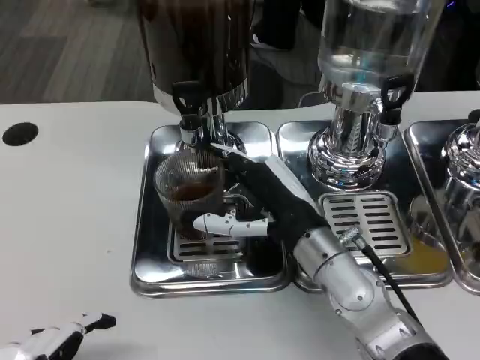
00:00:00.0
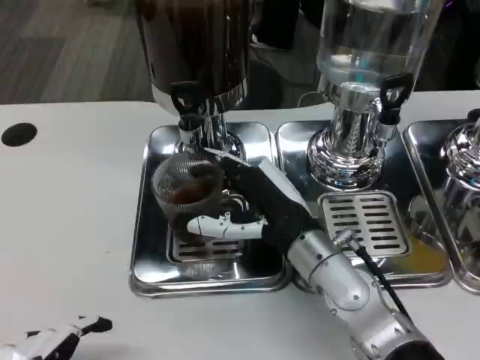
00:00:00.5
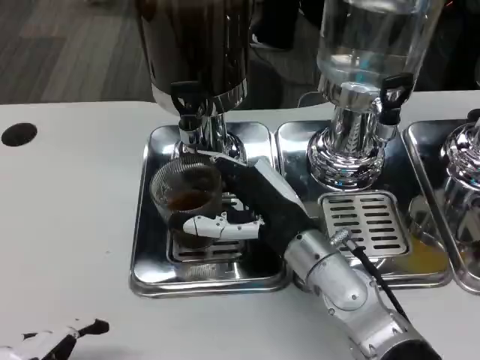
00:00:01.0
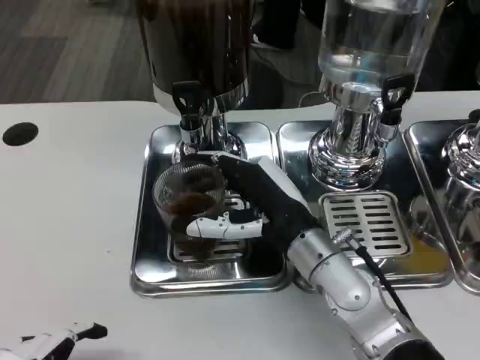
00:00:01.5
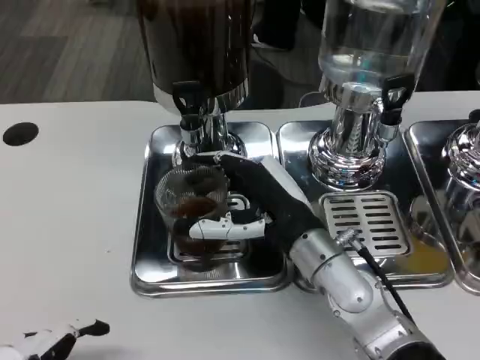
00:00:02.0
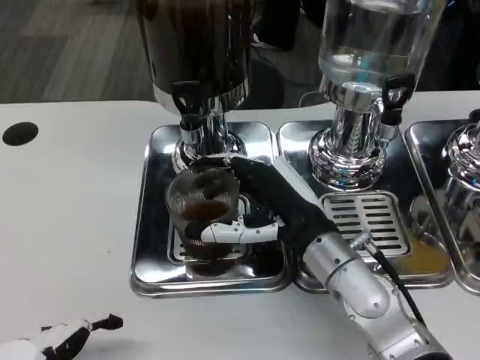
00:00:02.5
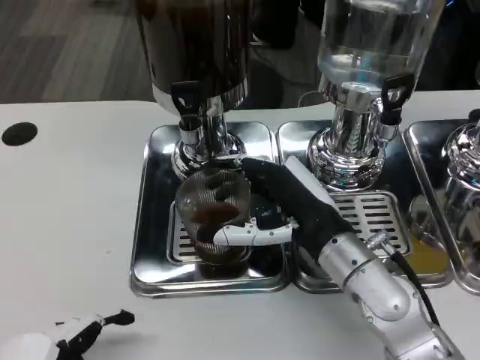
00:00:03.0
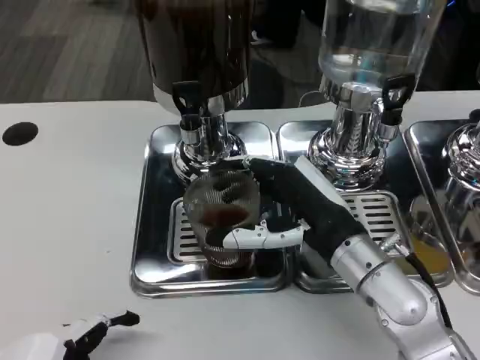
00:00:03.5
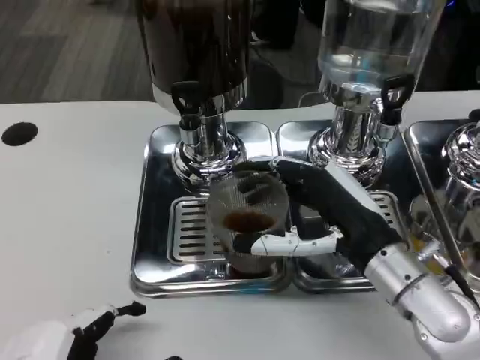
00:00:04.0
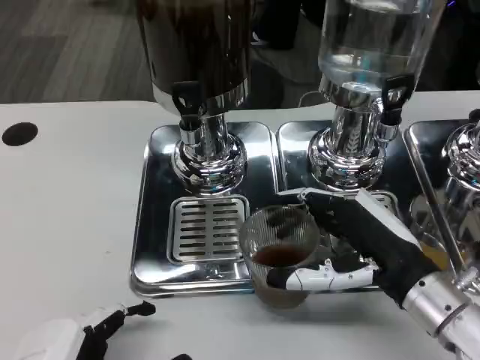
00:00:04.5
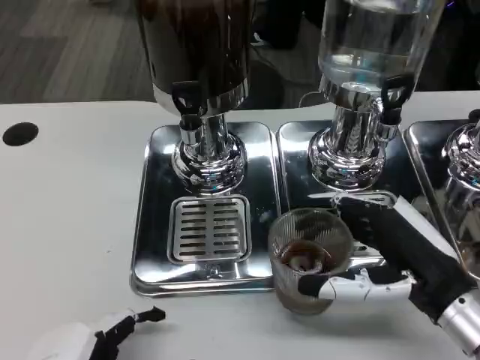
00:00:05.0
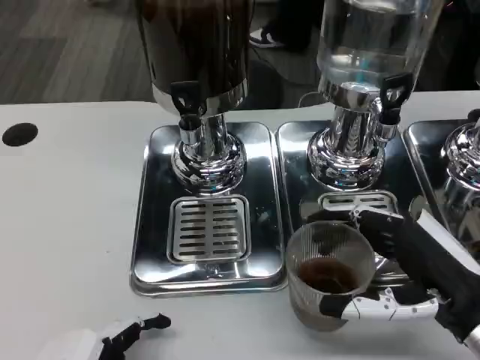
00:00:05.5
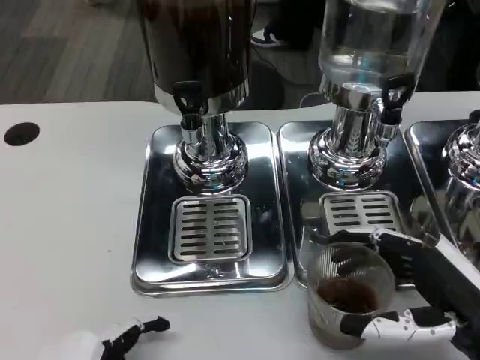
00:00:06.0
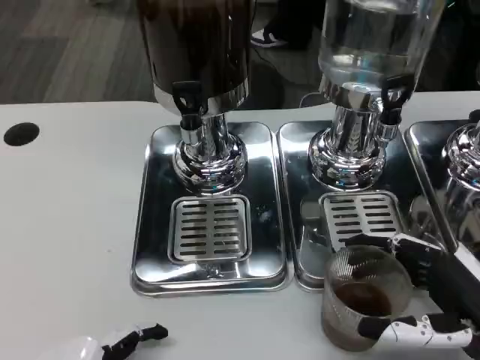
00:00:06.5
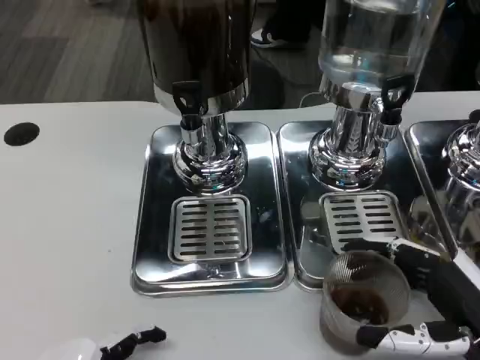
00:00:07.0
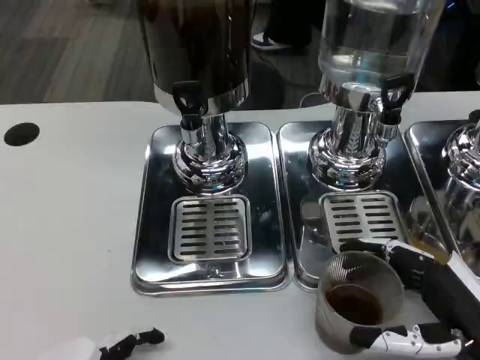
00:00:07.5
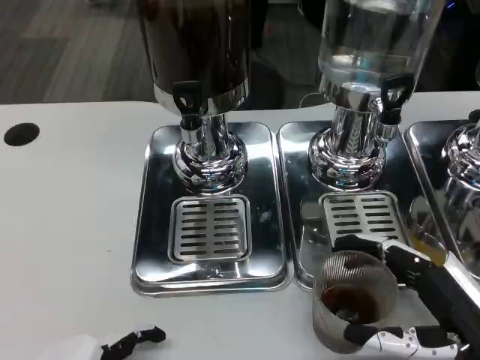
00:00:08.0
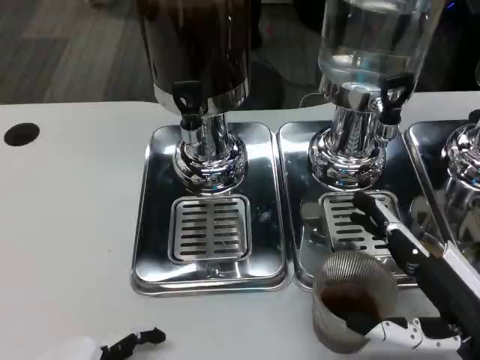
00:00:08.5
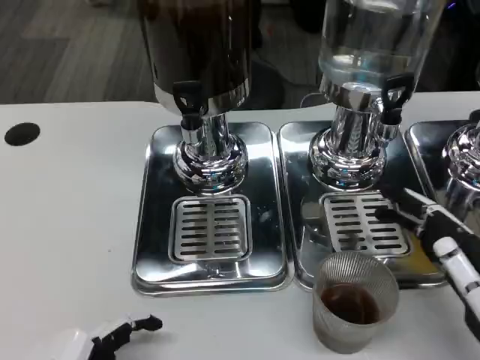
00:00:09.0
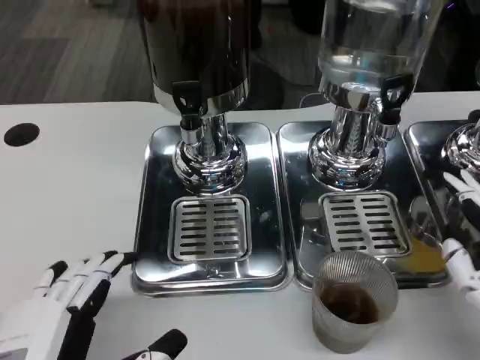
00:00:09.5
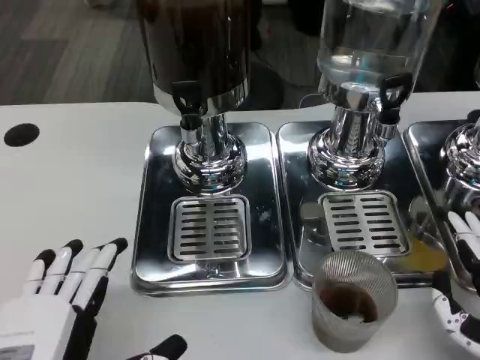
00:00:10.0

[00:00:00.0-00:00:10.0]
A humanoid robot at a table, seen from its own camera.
Task of the whole recording: Grasp the cup under the faucet to collect the drink, then remove the cup.
00:00:00.0 to 00:00:02.0: Both hands stay about where they are.
00:00:02.0 to 00:00:04.0: The right hand moves to the right, about 5 cm.
00:00:04.0 to 00:00:06.0: The right hand heads to the right and backward, covering approximately 10 cm.
00:00:06.0 to 00:00:08.0: The hands move only a little.
00:00:08.0 to 00:00:10.0: The right hand moves some 5 cm.

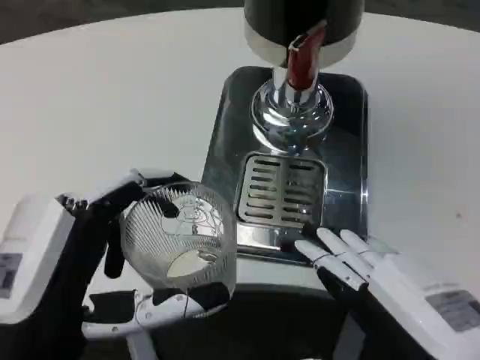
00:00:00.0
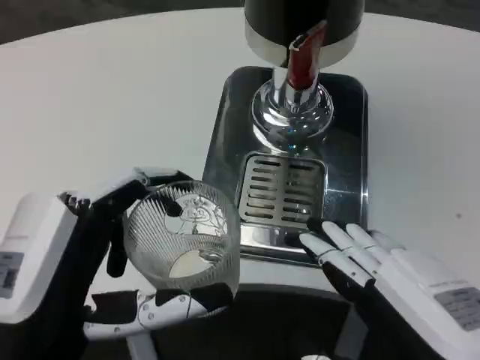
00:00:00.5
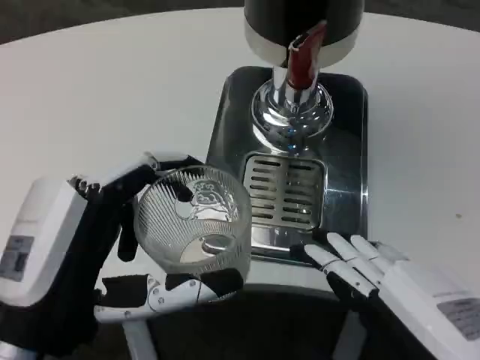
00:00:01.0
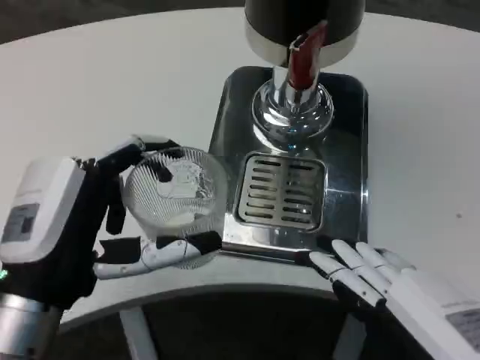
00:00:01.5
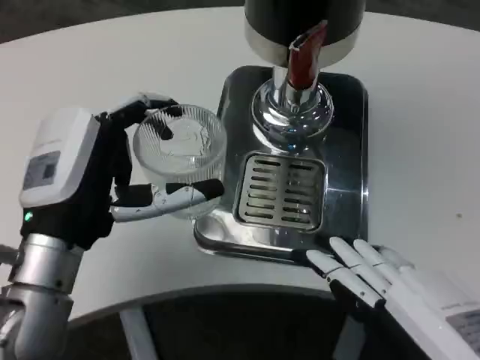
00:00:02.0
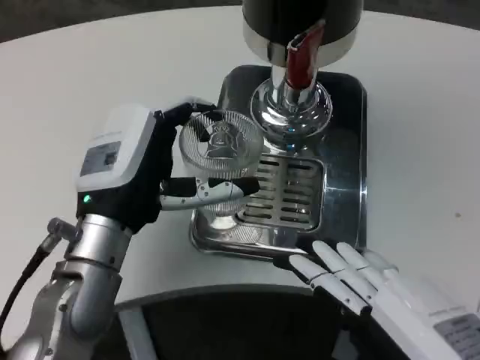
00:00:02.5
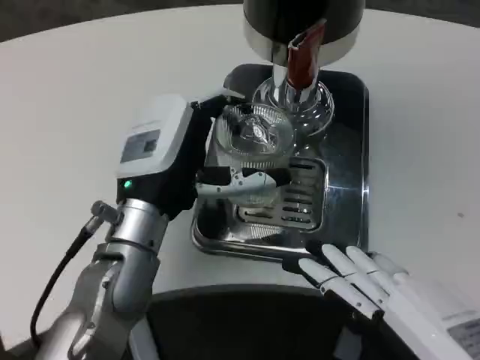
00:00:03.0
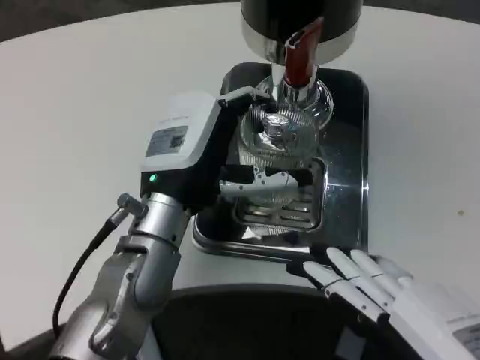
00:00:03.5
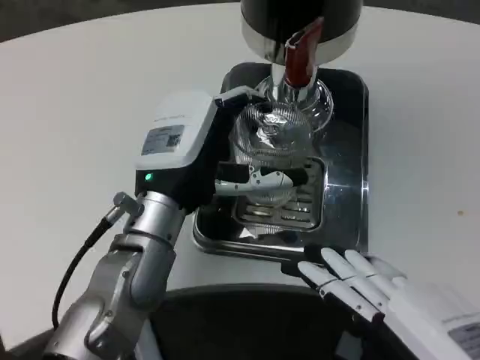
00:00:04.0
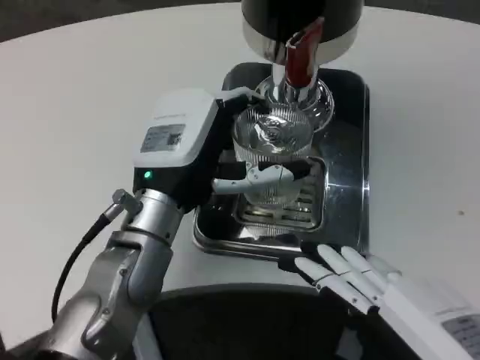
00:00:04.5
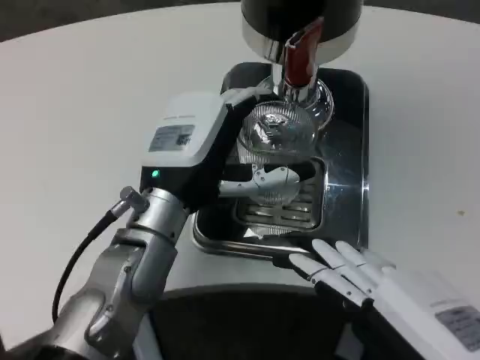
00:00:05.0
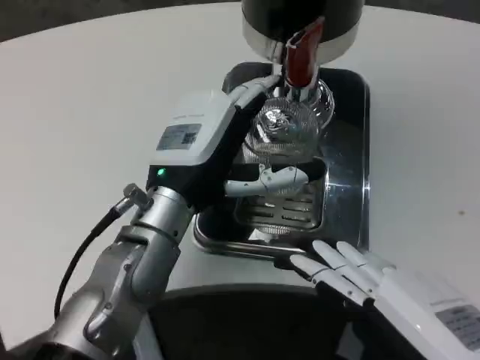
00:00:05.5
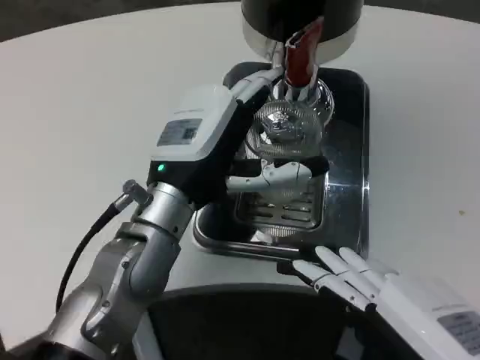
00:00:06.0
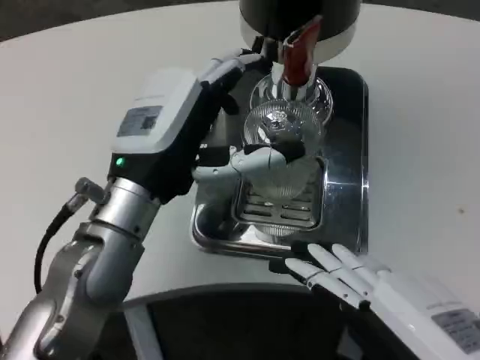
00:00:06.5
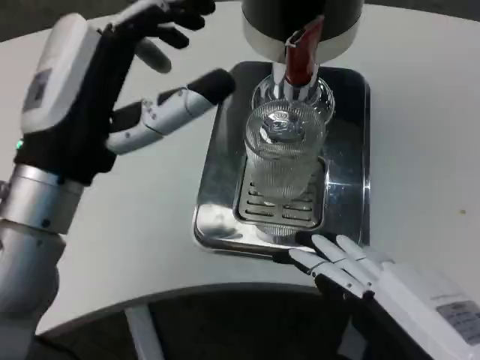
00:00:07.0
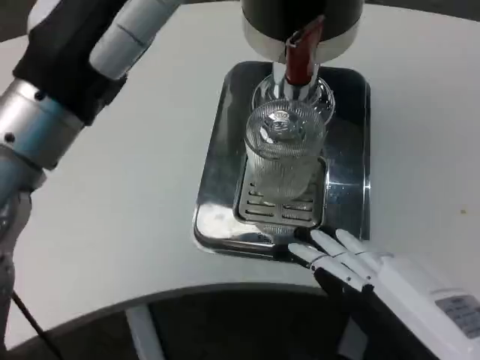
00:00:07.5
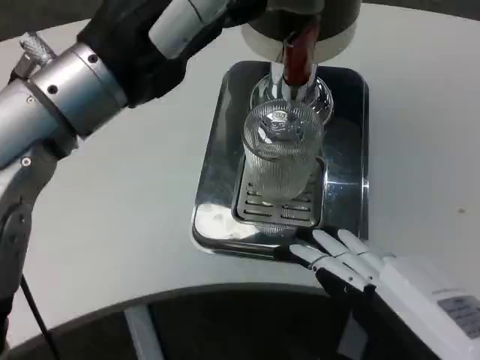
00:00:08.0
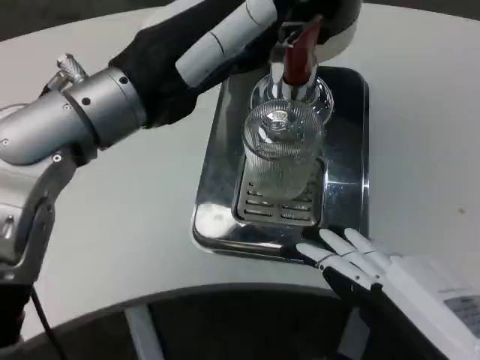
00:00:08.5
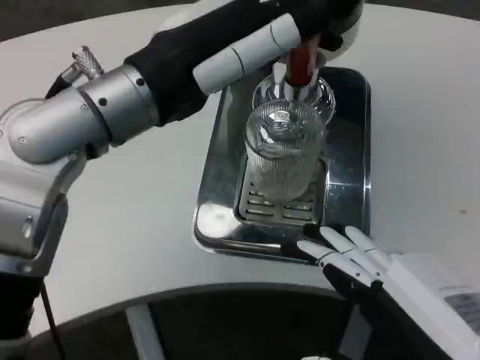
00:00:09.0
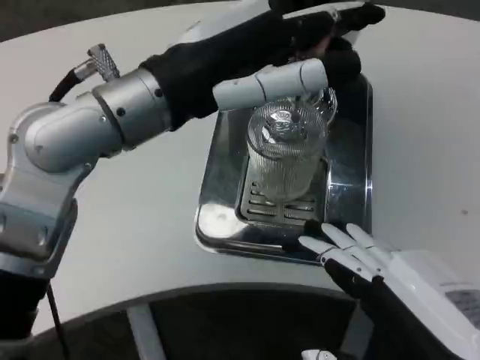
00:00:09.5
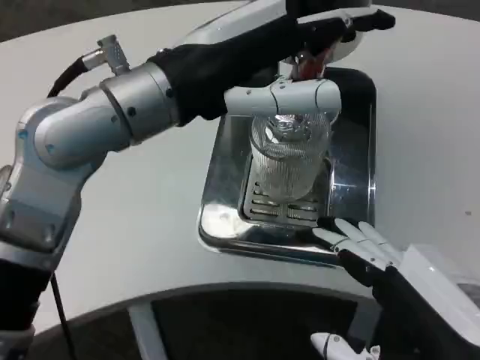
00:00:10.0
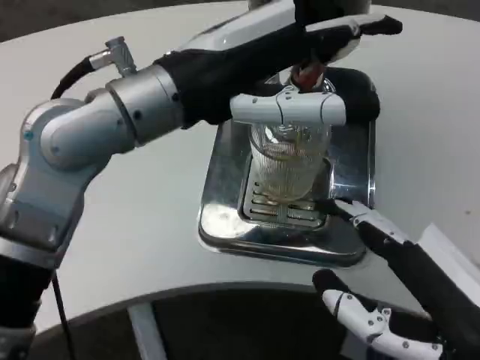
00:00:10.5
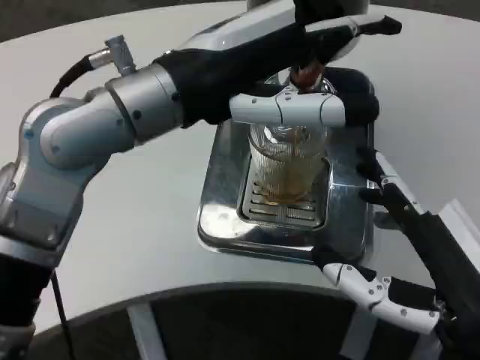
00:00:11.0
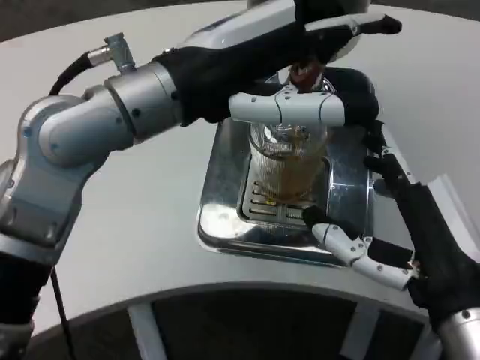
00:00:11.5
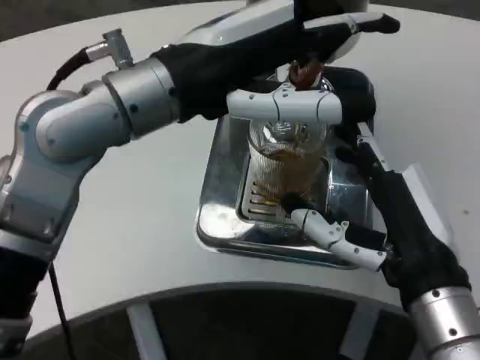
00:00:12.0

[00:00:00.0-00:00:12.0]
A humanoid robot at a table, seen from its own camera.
Task of the whole recording: Grasp the cup under the faucet to collect the drink, then remove the cup.
00:00:00.0 to 00:00:02.0: The left hand goes roughly 10 cm forward.
00:00:02.0 to 00:00:04.0: The left hand shifts approximately 10 cm to the right and forward.
00:00:04.0 to 00:00:06.0: The hands move only a little.
00:00:06.0 to 00:00:08.0: The left hand is displaced upward by some 15 cm.
00:00:10.0 to 00:00:12.0: The right hand shifts some 10 cm forward.

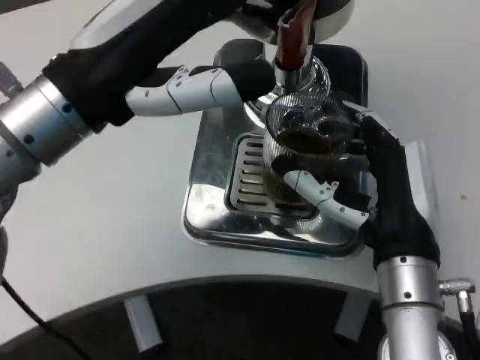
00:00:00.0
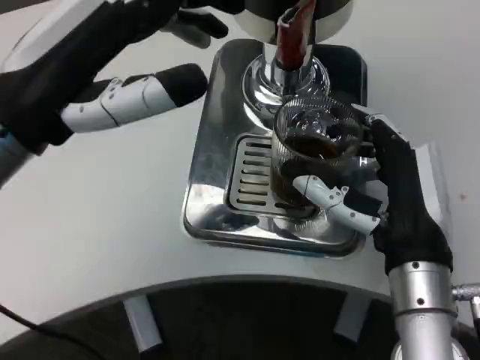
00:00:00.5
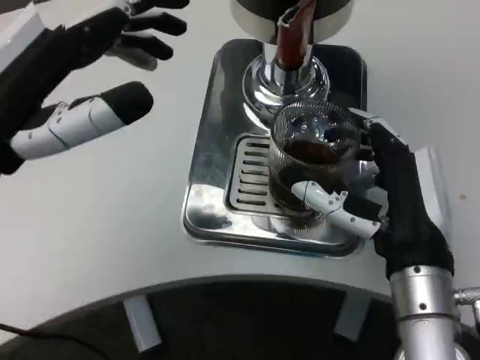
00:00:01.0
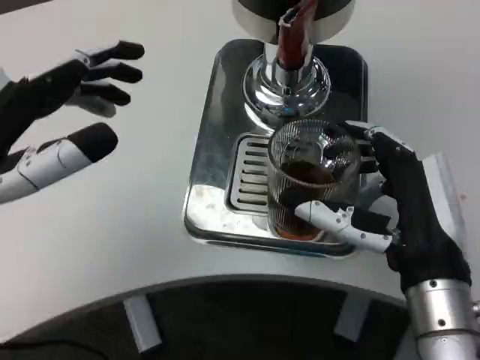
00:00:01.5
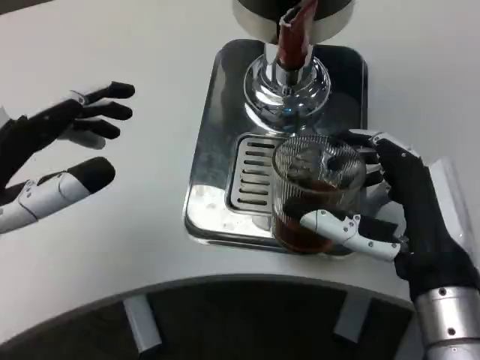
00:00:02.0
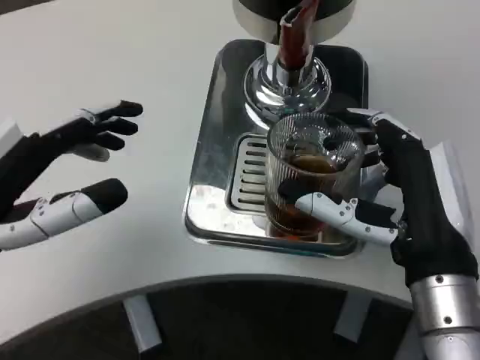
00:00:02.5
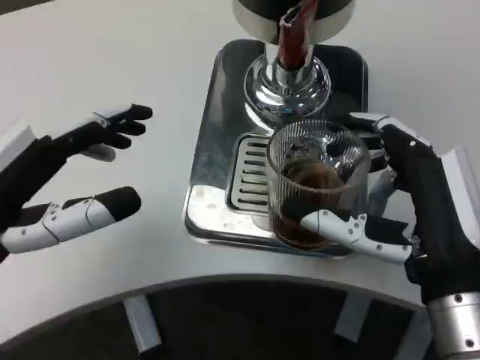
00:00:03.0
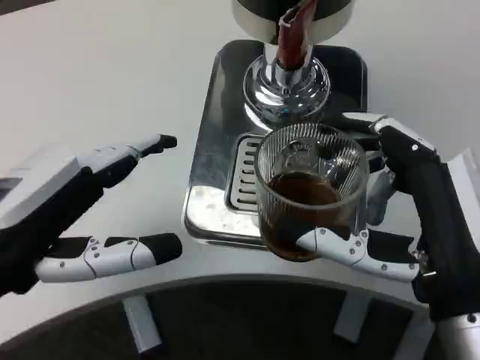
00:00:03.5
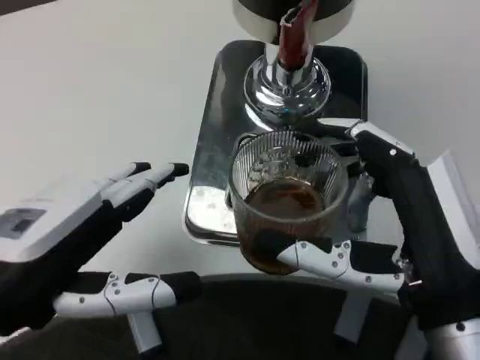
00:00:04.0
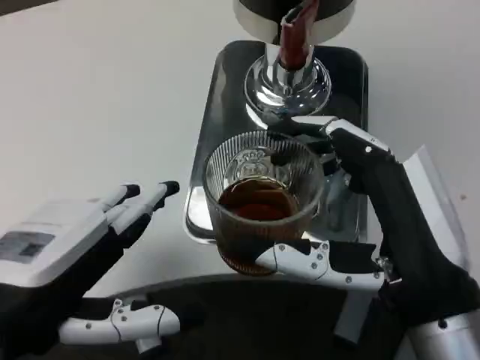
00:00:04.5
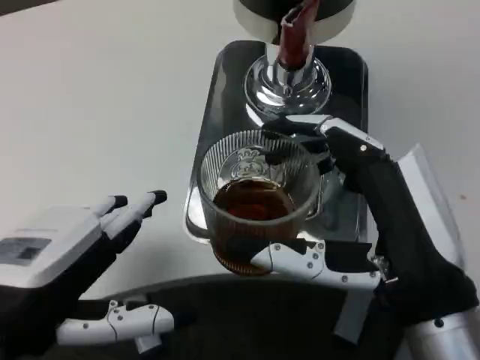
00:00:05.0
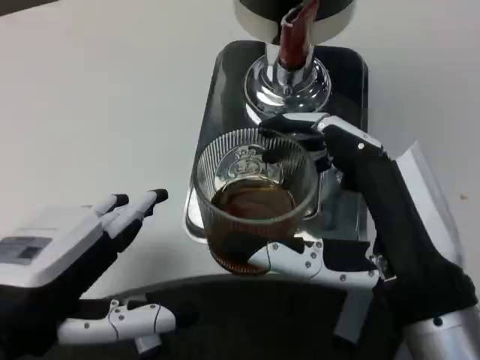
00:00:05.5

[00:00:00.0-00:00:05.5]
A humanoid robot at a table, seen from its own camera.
Task of the whole recording: Grasp the cup under the faucet to collect the drink, then remove the cup.
00:00:00.0 to 00:00:02.0: The left hand travels to the left, downward and backward by approximately 15 cm.
